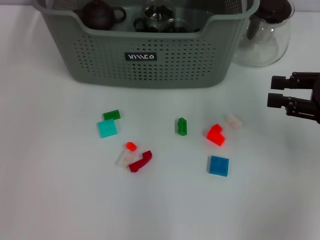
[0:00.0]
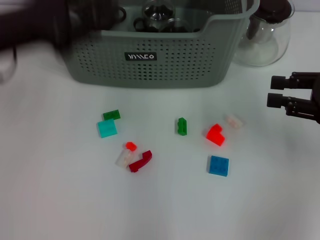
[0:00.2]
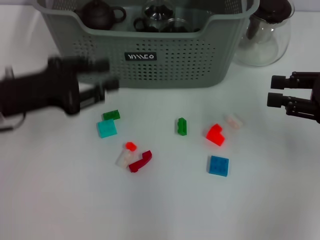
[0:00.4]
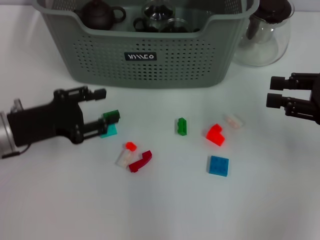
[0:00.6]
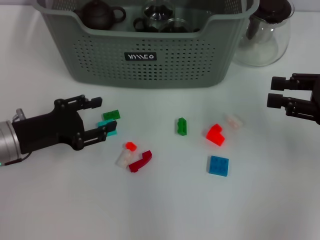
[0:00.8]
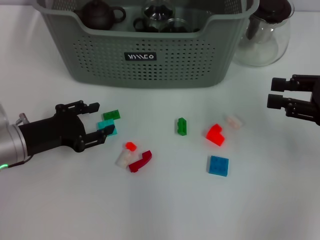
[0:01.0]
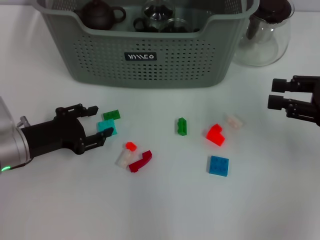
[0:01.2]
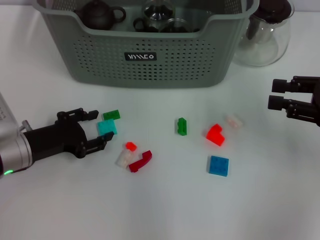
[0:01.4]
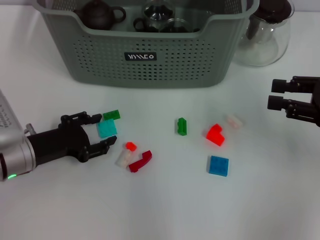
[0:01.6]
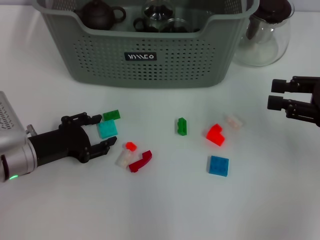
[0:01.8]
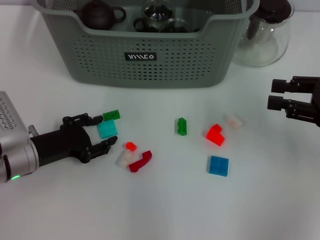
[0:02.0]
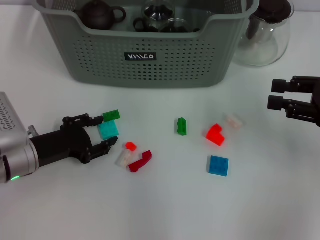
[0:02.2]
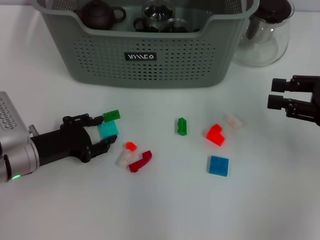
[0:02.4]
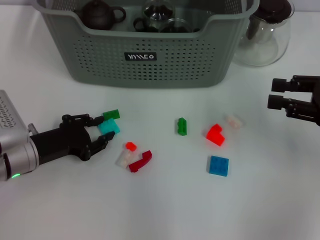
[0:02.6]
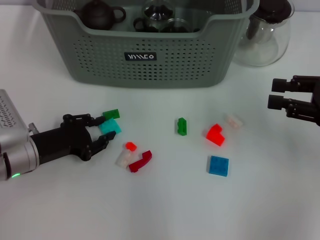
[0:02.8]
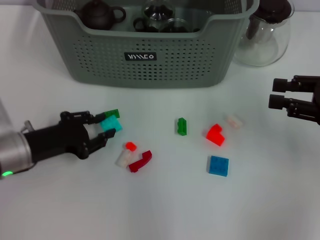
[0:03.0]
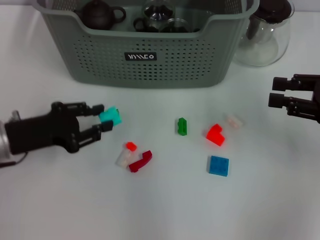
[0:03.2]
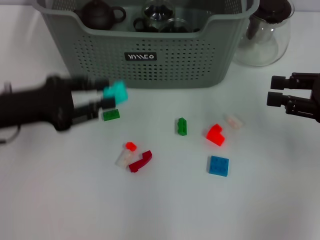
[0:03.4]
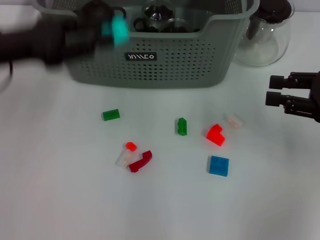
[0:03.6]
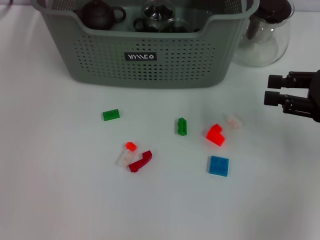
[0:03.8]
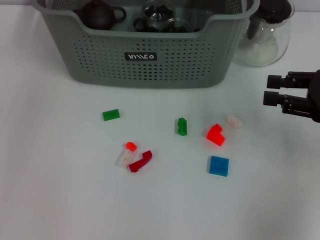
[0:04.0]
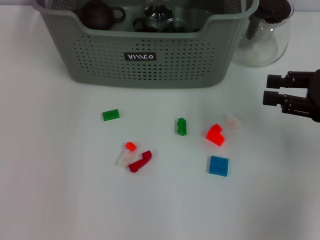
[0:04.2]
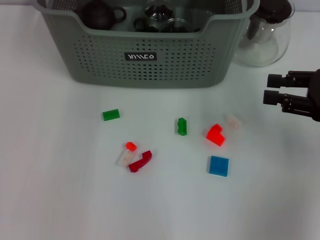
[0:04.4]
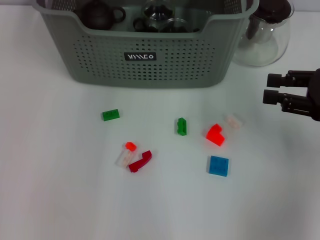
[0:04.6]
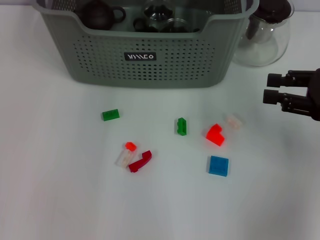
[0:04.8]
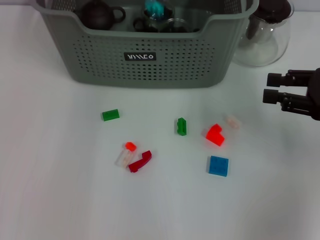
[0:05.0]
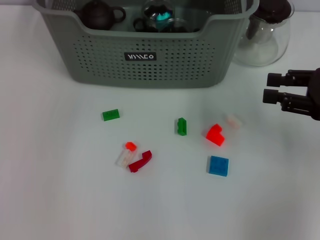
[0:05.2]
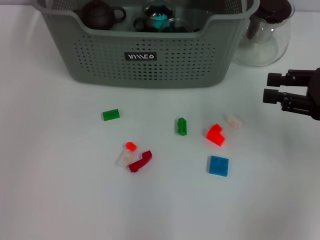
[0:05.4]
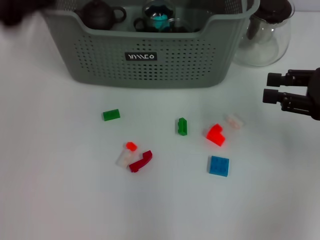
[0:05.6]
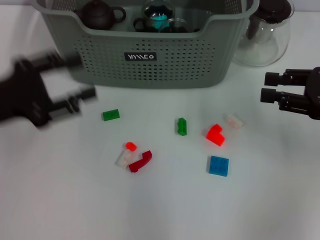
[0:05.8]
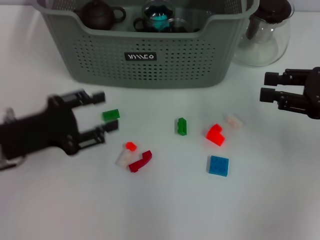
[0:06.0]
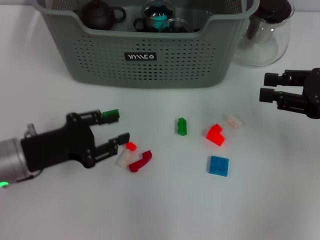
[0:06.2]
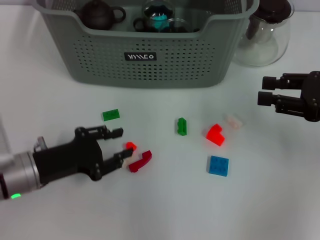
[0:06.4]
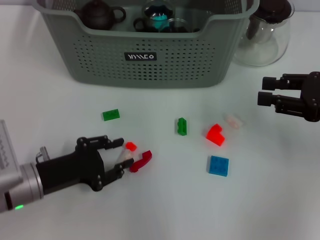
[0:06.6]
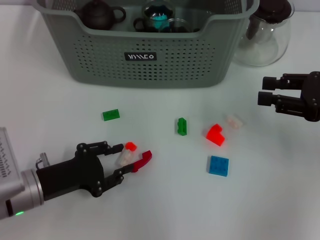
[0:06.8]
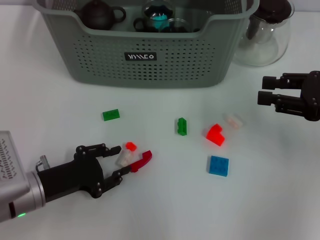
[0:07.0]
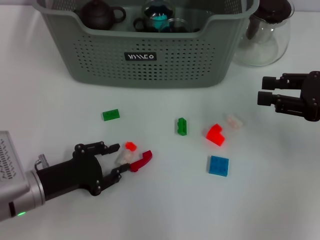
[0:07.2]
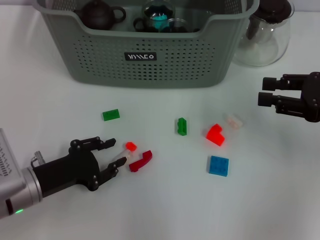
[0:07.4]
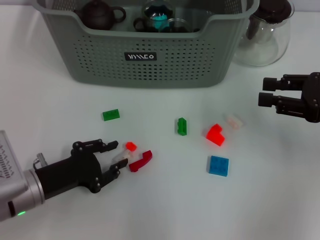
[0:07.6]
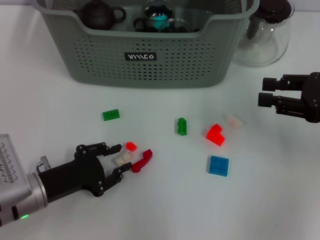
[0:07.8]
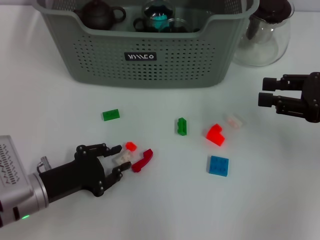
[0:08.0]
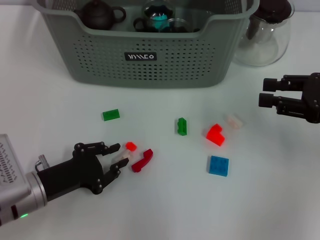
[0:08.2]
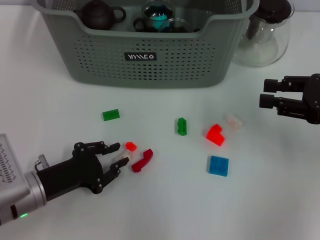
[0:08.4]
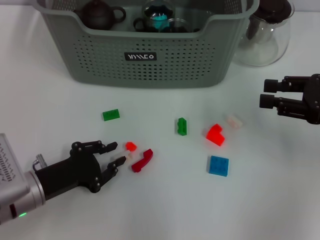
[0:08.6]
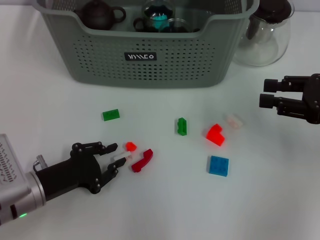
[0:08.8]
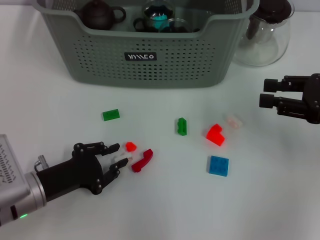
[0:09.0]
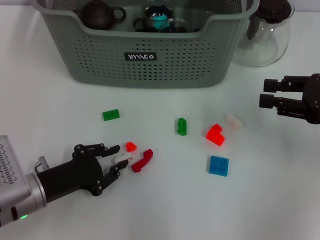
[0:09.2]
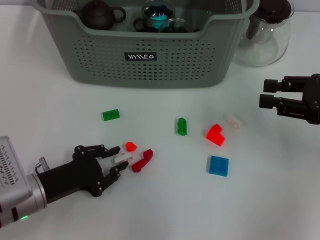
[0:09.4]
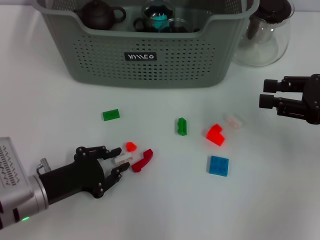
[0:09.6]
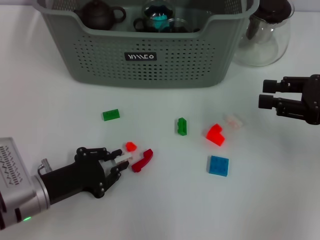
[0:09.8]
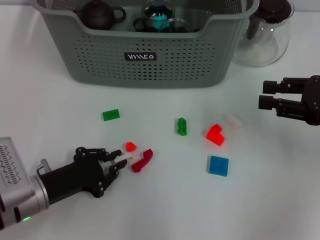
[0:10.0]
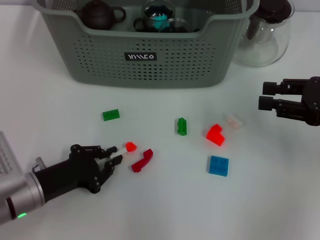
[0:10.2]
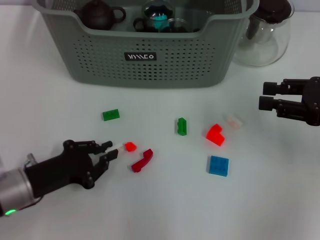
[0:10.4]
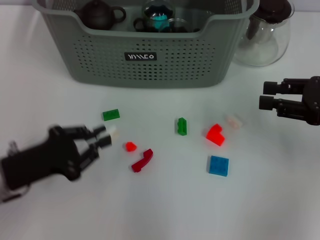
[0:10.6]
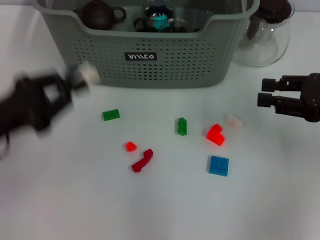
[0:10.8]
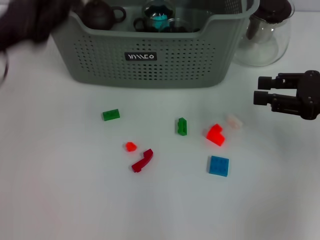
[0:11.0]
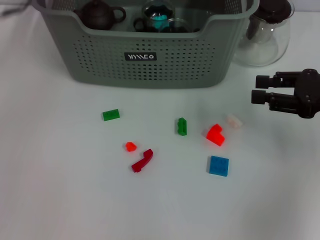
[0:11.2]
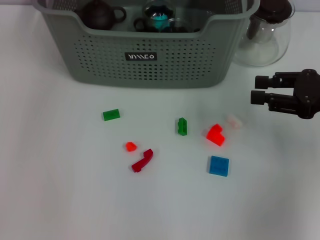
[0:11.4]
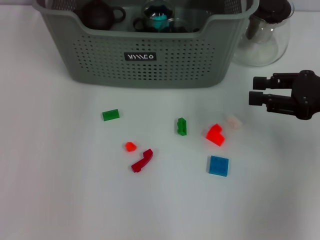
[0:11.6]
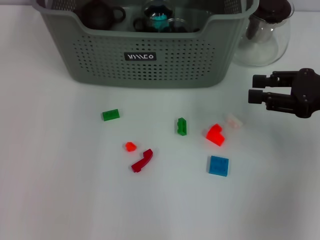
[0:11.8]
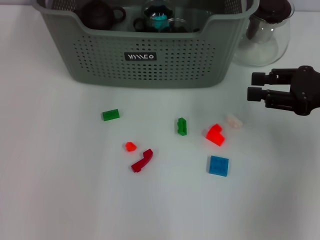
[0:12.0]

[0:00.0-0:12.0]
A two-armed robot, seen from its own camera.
Task of the whole recording: pick up the teacup on the table and place it into the storage bin, pick up the block on the table and place it into the storage bin.
Step, 5.4 to 10.2 s: Grasp the white block with left gripper.
0.0 to 1.6 s: The left gripper heads downward, covering roughly 25 cm, and opens its fingers.
1.6 to 3.0 s: Both grippers stay about where they are.
3.0 to 4.4 s: The left gripper heads upward, forward and to the right, covering some 35 cm.
4.4 to 6.0 s: The left gripper travels backward, downward and to the left by some 35 cm.
6.0 to 7.6 s: The left gripper goes roughly 10 cm downward.
7.6 to 9.0 s: Neither gripper changes place.
9.0 to 10.4 s: There are only small adjustments of the grippers.
10.4 to 12.0 s: The left gripper is displaced forward, upward and to the right by roughly 40 cm.

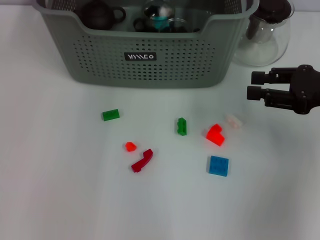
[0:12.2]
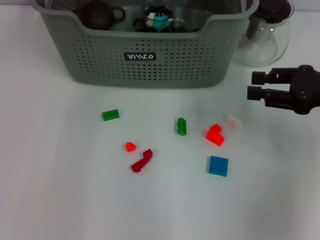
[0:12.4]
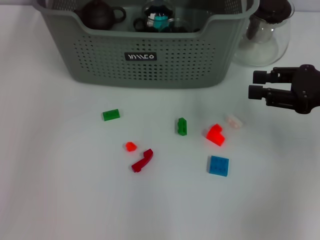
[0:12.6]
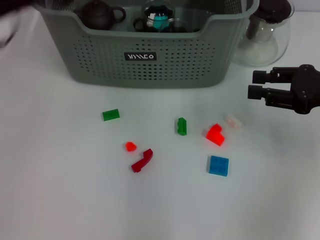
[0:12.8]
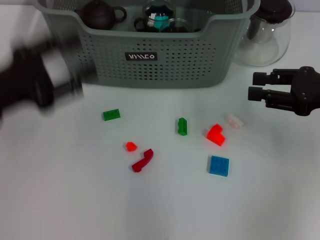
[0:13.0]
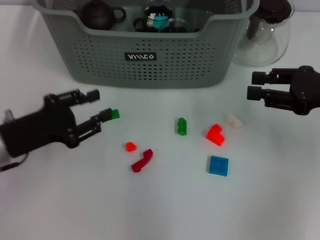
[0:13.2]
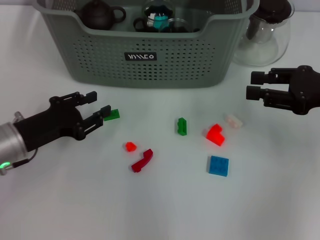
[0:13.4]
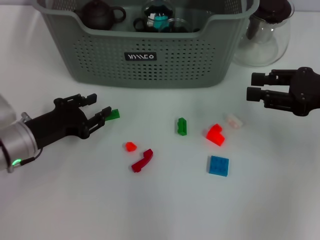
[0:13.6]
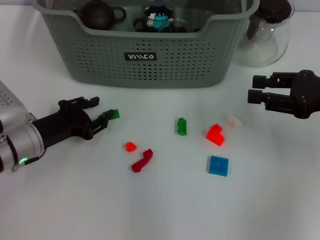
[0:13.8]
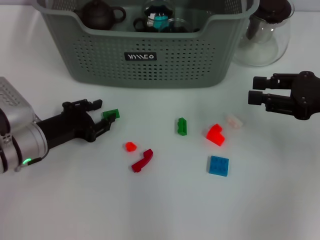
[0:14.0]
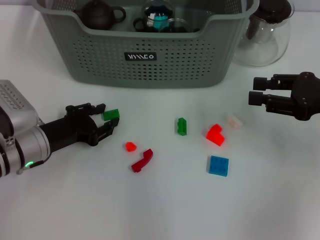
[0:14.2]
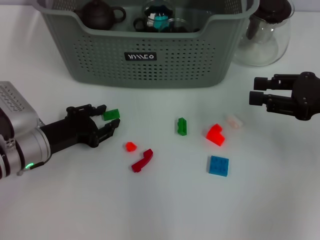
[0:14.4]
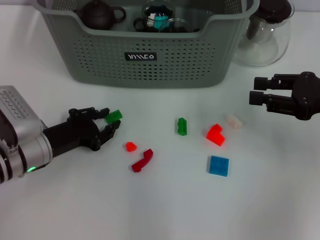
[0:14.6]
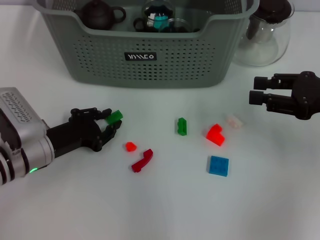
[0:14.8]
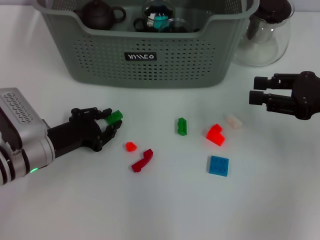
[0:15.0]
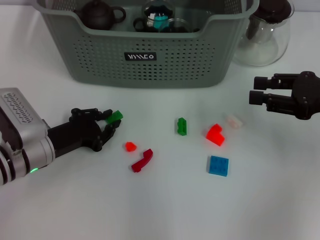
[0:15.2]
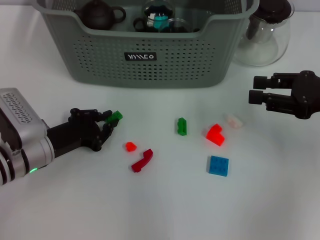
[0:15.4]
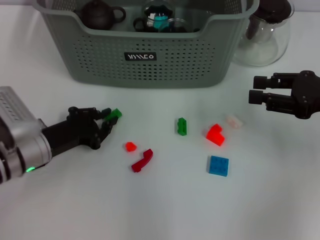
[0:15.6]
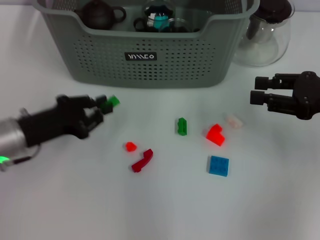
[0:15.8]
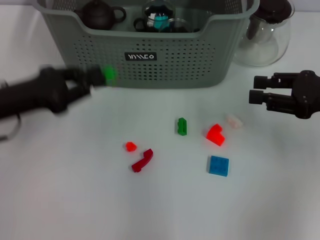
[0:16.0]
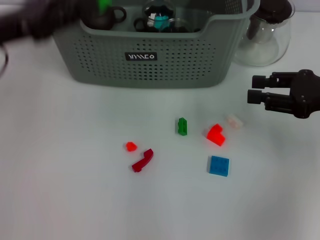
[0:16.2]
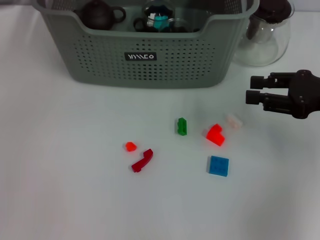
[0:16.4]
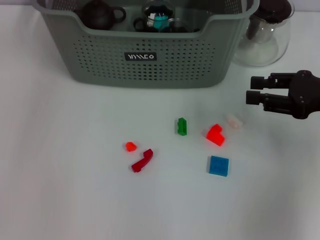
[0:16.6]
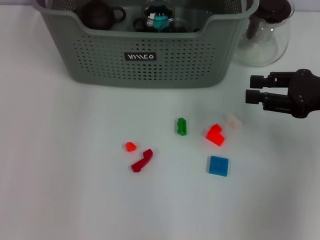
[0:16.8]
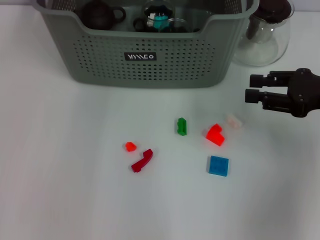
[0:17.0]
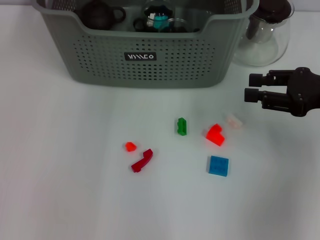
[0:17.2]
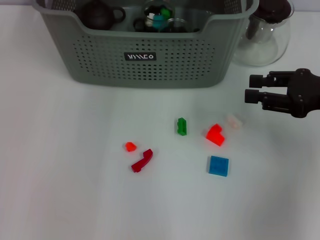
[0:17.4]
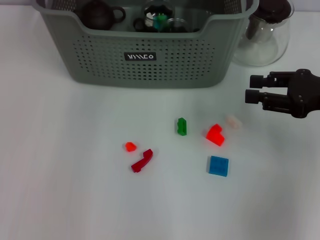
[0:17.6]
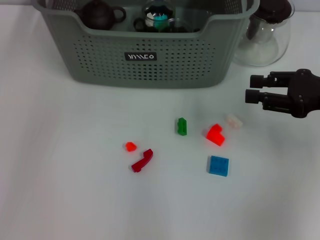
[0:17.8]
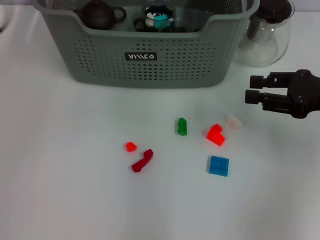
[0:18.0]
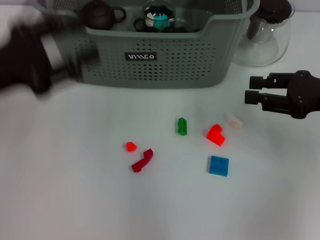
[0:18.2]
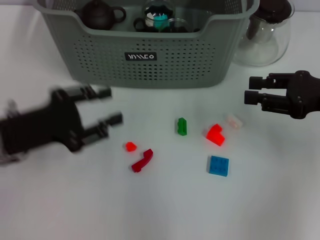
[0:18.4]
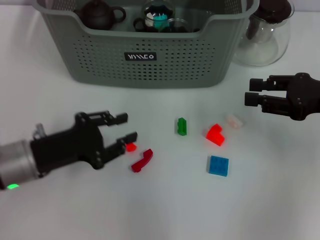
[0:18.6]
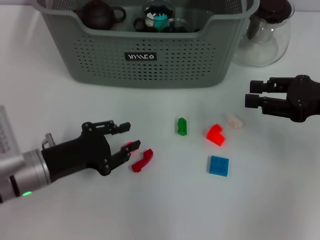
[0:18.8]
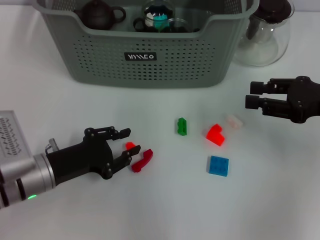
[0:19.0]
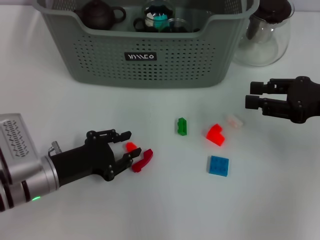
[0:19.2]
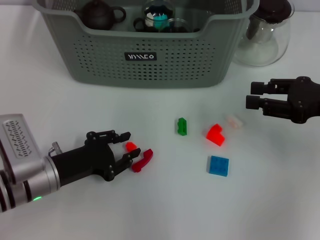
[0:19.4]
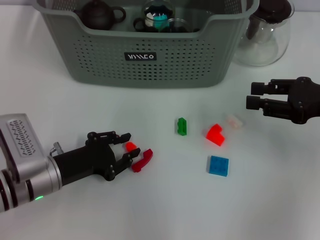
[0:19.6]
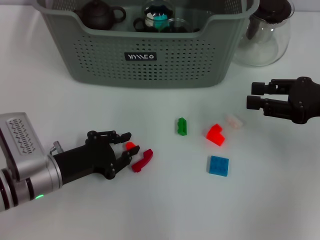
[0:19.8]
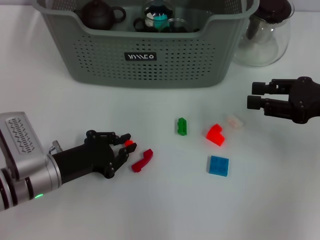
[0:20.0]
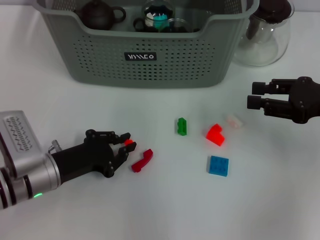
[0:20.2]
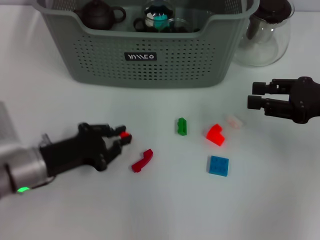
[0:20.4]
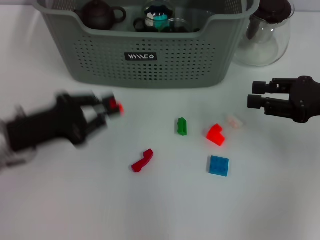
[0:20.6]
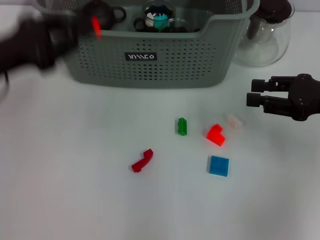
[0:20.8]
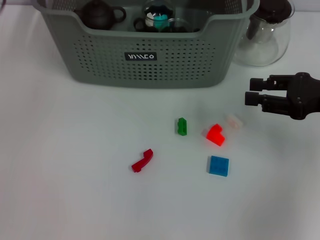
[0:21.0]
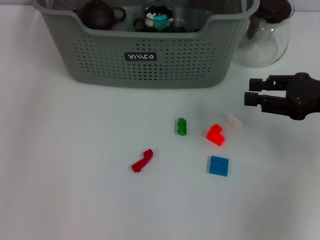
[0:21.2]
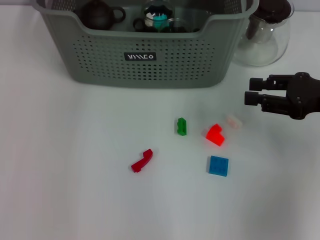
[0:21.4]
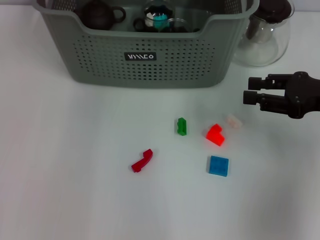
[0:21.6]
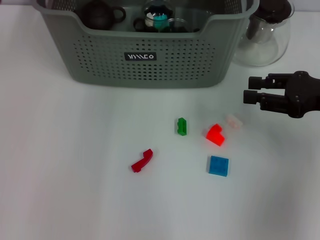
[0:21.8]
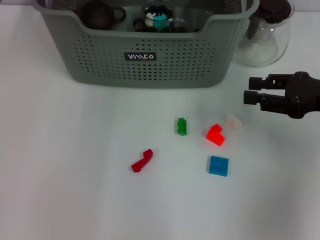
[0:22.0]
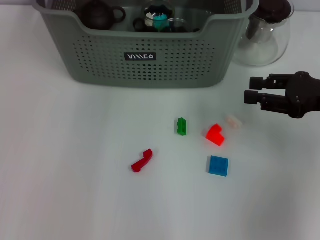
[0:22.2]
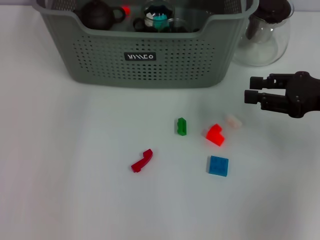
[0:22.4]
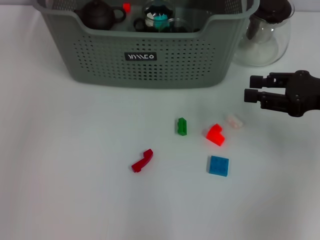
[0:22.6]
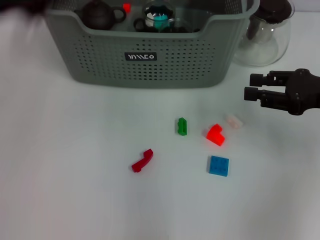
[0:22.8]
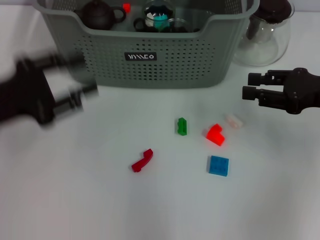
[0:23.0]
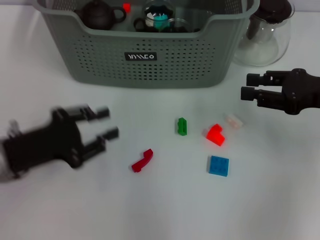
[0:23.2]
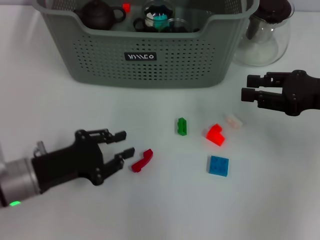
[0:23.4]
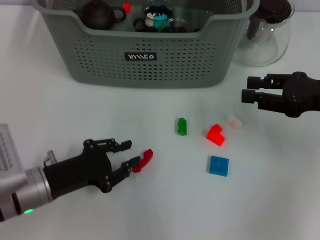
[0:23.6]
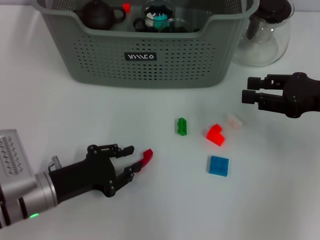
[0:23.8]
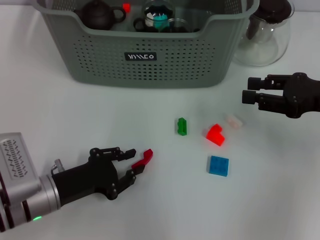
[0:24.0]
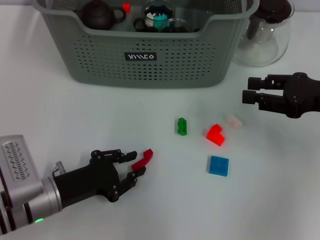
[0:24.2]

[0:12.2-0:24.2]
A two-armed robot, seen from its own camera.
Task of the whole recording: pick up the teacup on the table and place it into the storage bin, pick up the block on the table and place it into the storage bin.
Step, 12.6 to 15.6 s: Grasp the green block with left gripper.
Step, 15.8 to 17.8 s: Place the green block in the storage box with left gripper.
Step, 18.0 to 20.2 s: Grasp the orange block with left gripper.
Step, 20.4 to 22.4 s: Place the orange block in the storage box with left gripper.
12.2 to 13.8 s: The left gripper travels backward, downward and to the left by about 35 cm.
13.8 to 15.2 s: The grippers stay close to where they were, moving slightly.
15.2 to 16.6 s: The left gripper is displaced upward and forward by some 30 cm.
16.6 to 18.2 s: The left gripper heads backward, downward and to the left, covering about 25 cm, and opens its fingers.
18.2 to 19.8 s: The left gripper heads downward, covering approximately 15 cm.
19.8 to 21.2 s: The left gripper travels upward and forward by some 35 cm.
22.6 to 24.2 s: The left gripper travels downward and backward by roughly 30 cm.
